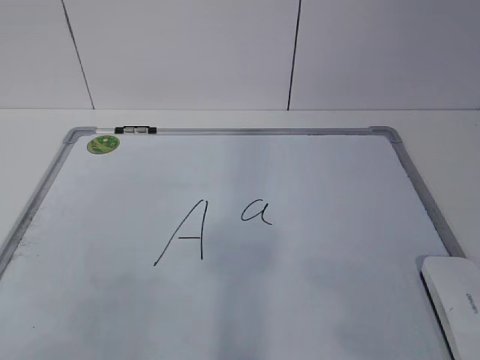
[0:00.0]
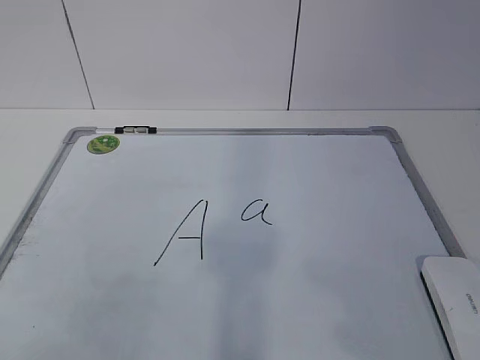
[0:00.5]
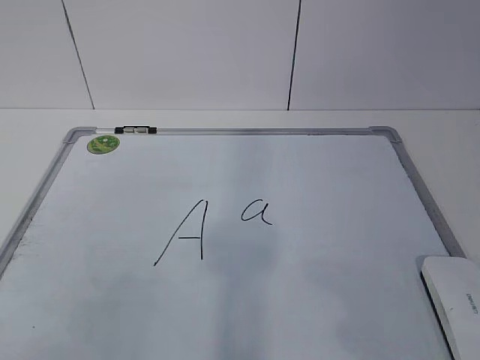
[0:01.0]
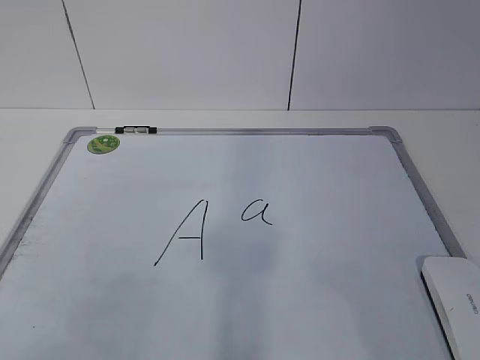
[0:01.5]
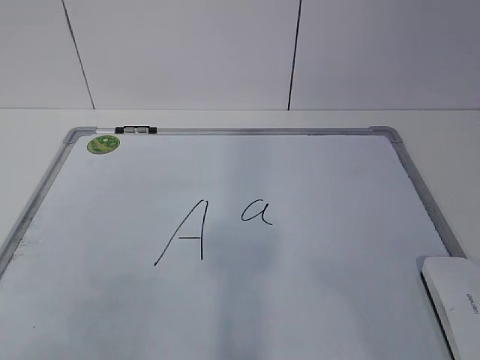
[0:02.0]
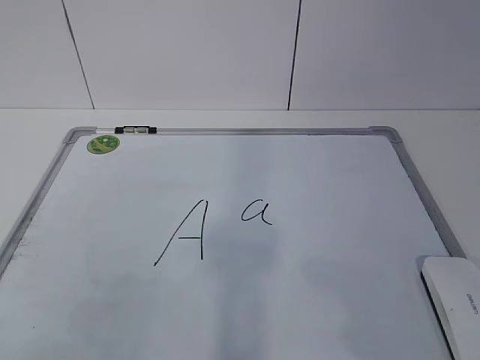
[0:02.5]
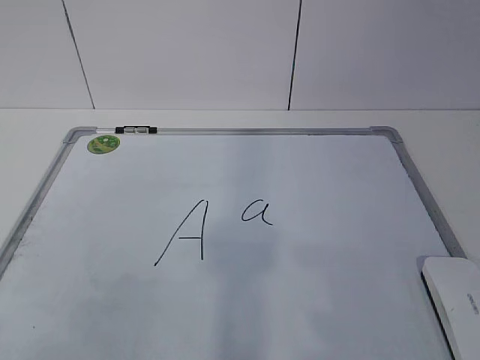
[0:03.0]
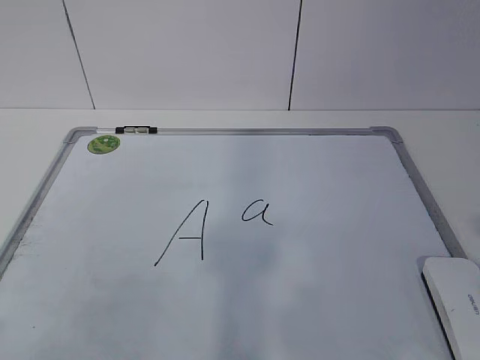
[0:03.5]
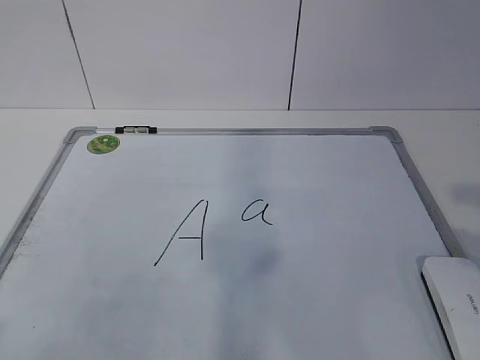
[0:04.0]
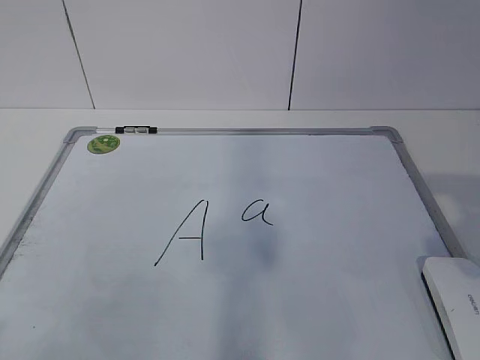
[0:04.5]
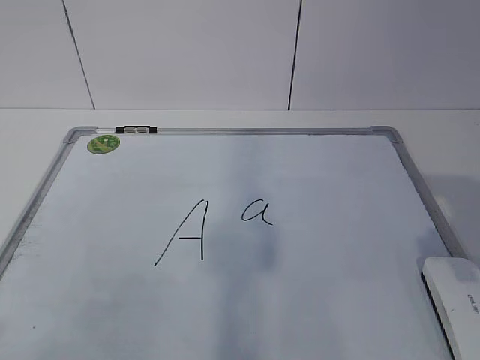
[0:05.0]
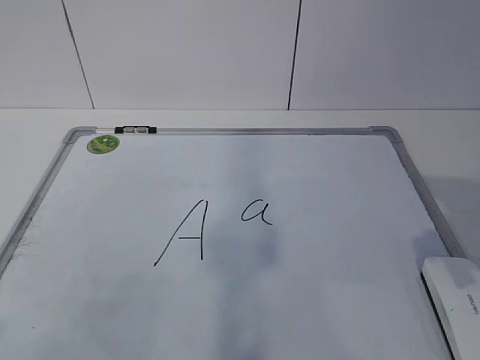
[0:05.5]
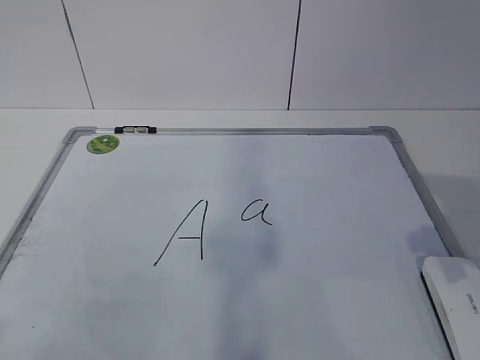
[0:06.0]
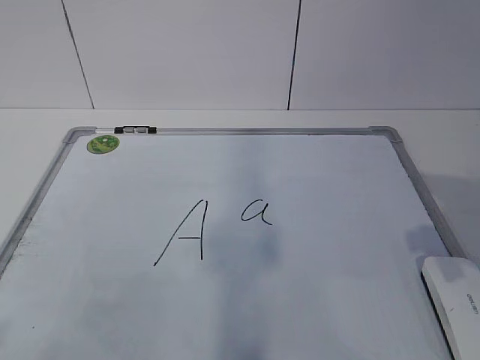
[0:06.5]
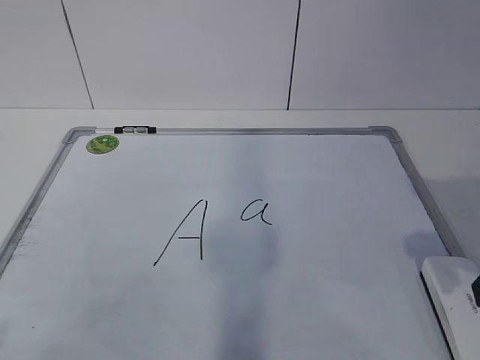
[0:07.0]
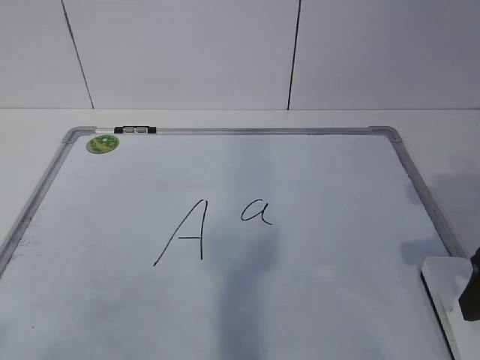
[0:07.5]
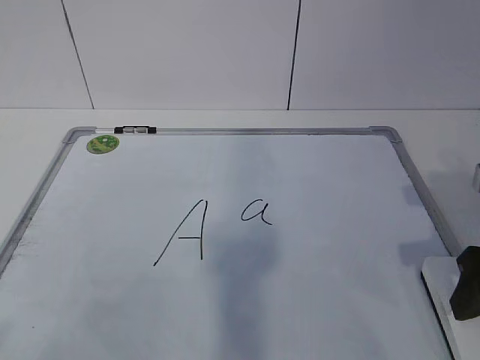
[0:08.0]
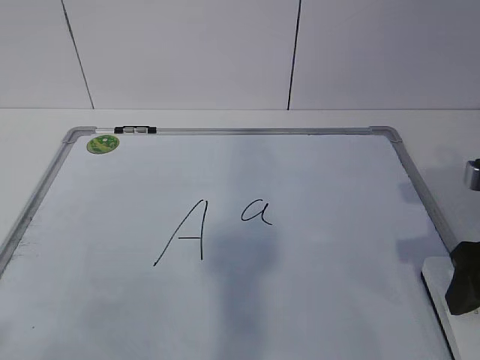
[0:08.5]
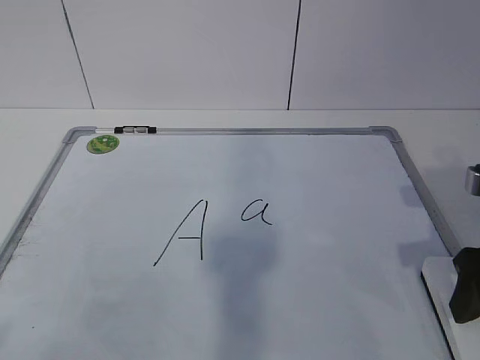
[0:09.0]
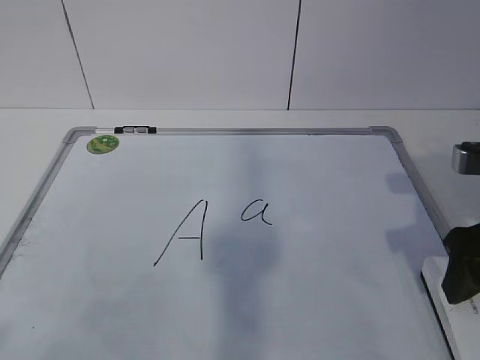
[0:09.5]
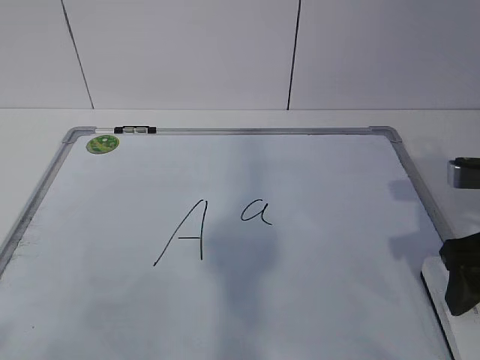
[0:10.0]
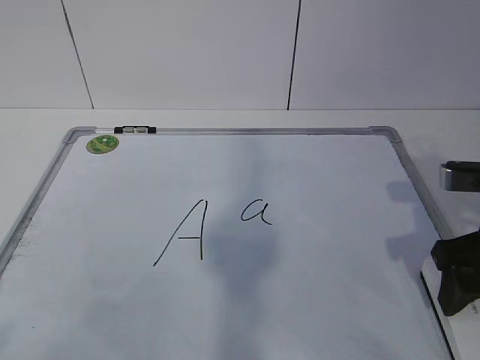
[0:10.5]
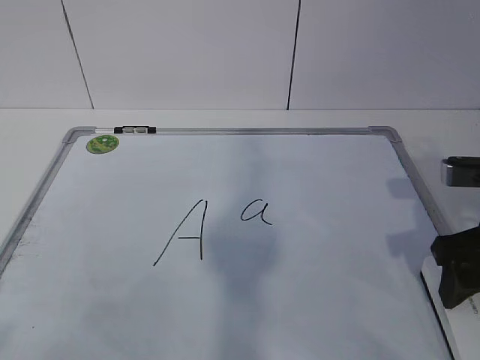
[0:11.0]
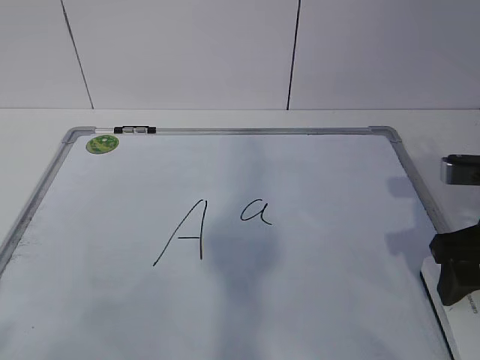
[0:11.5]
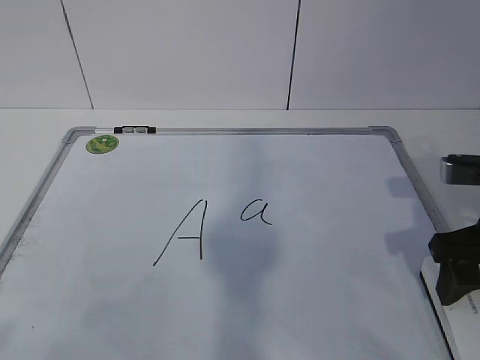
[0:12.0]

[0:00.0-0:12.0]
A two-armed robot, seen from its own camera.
Task of the whole recording: pick up the eraser on the blackboard and erase the letter "a".
Step, 0:00.0 to 0:11.0: Grab the eraser with your right hand.
0:06.0 to 0:08.0: The right gripper goes roughly 5 cm downward.
0:08.0 to 0:10.0: The grippers stay close to where they were, moving slightly.
0:10.0 to 0:12.0: The two grippers keep their place.

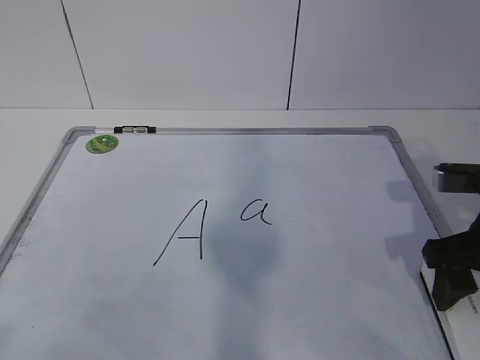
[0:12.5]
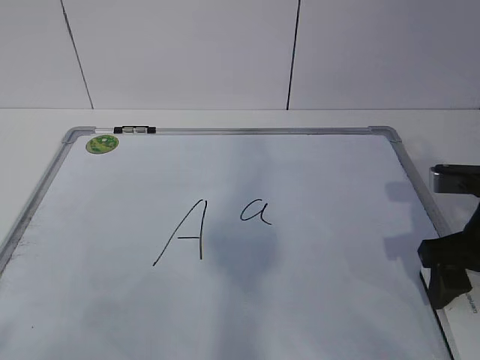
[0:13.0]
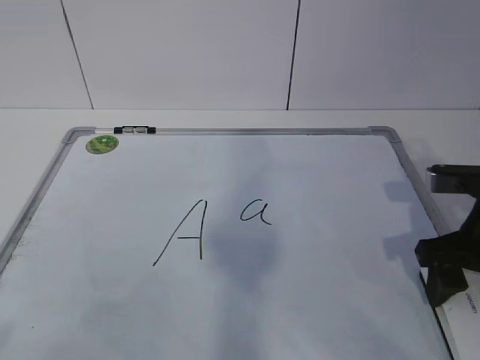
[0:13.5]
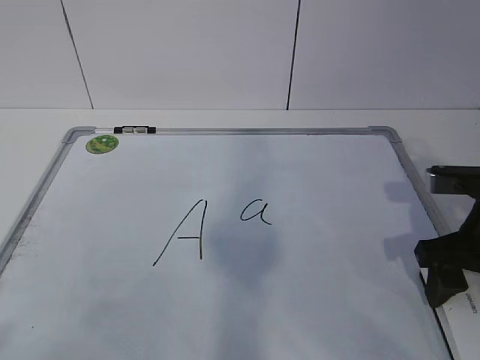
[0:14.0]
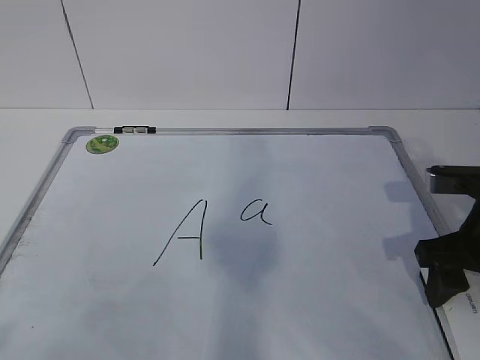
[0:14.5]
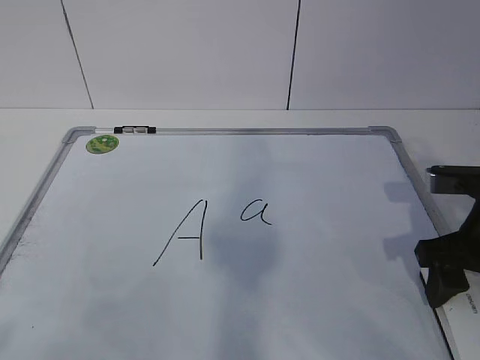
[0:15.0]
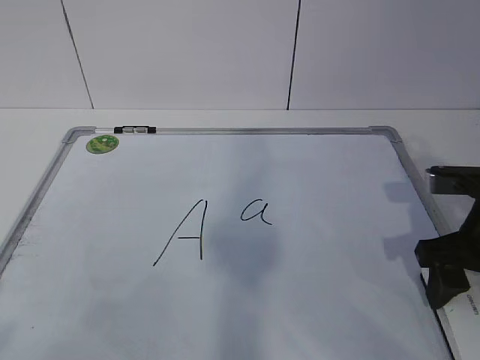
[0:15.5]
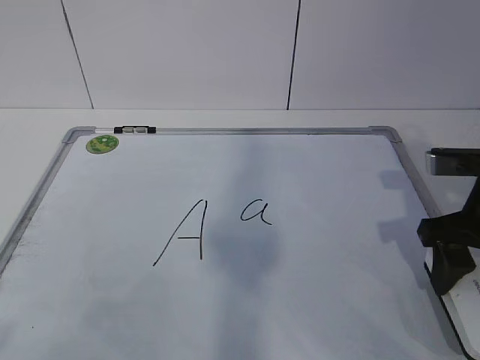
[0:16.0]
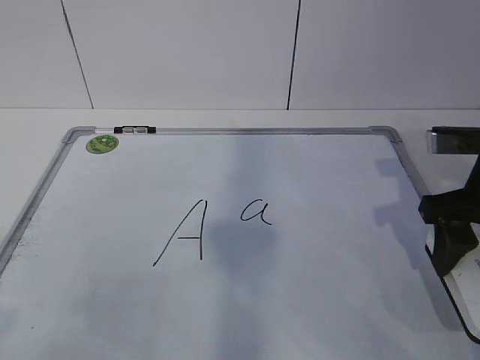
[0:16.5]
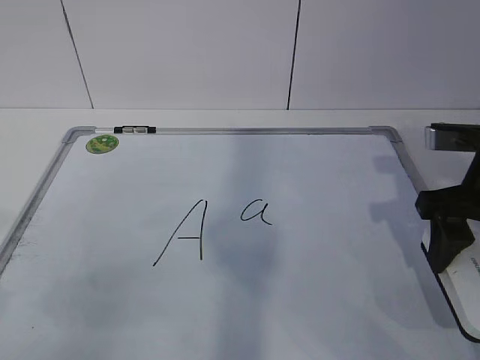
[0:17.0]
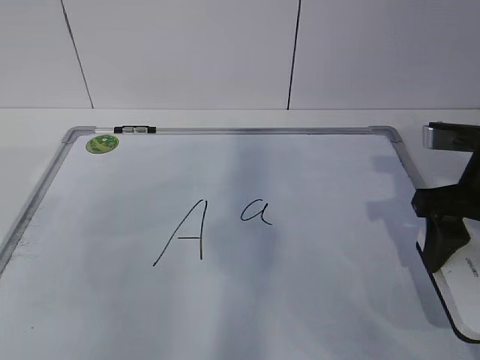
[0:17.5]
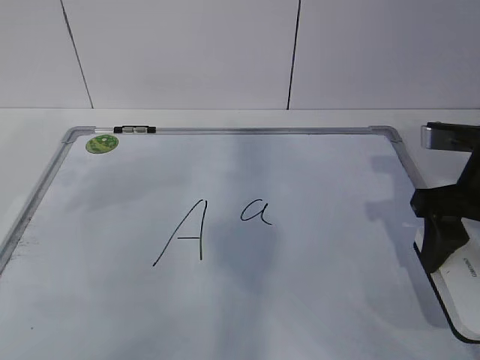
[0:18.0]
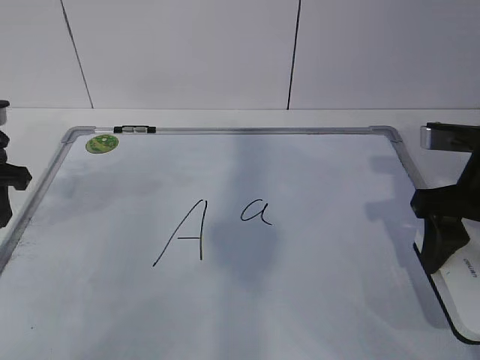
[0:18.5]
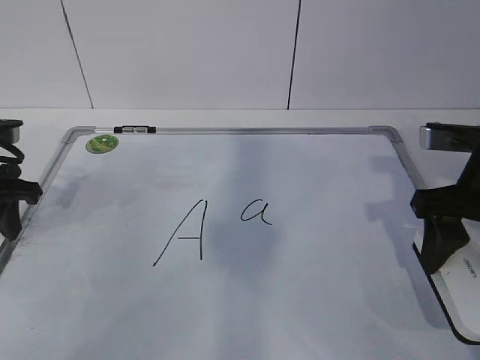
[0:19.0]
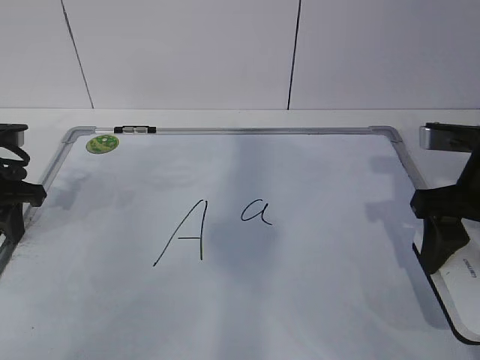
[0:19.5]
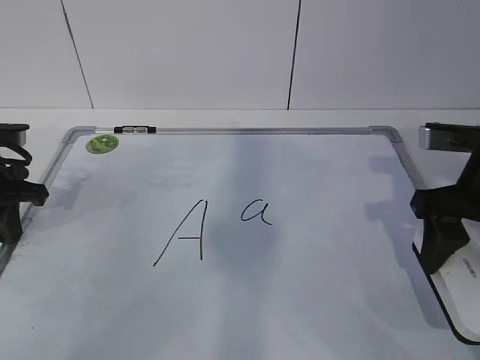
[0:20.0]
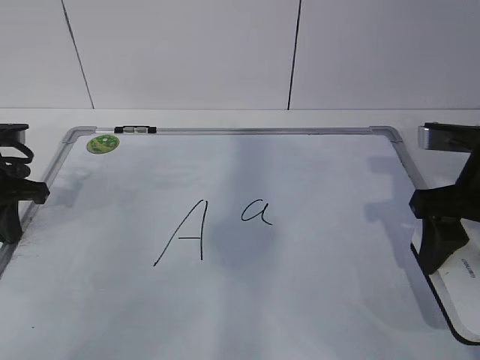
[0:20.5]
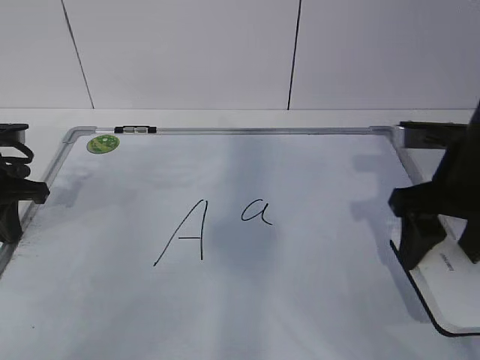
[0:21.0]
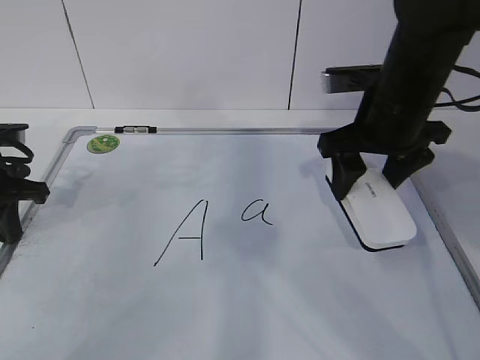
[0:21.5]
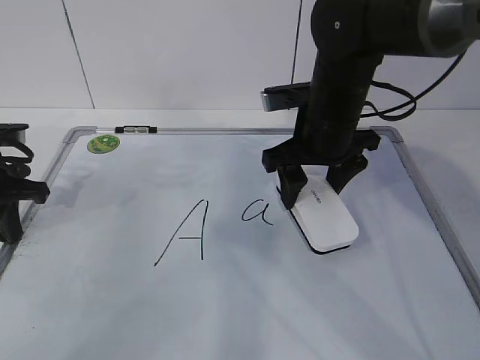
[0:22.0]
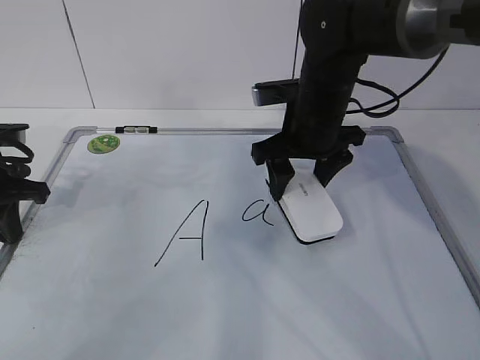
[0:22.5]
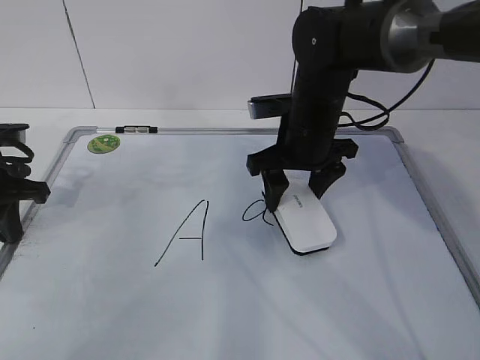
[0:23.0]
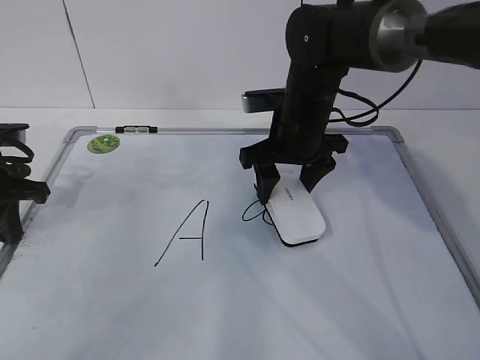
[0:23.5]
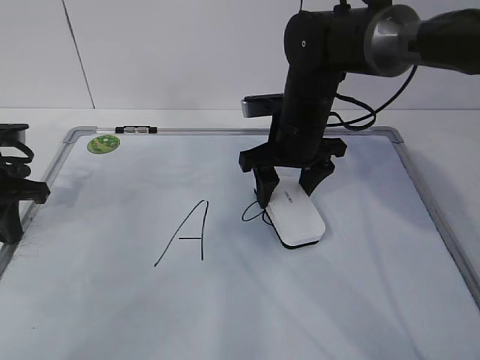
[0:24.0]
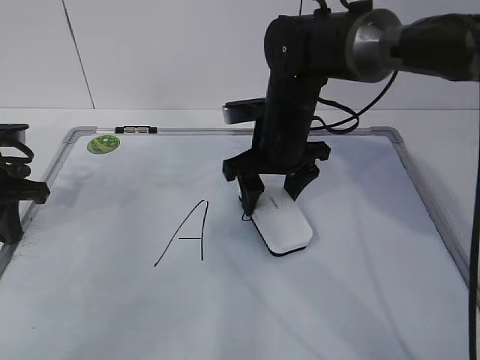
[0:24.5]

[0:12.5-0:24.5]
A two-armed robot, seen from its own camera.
Task of the whole recording: pick up the eraser on the blackboard and erase the letter "a".
Step, 0:12.5 to 0:16.5: Hold the drawing board steady with your left hand.
Step, 0:17.0 to 0:24.0: Erase the letter a with your right hand.
0:12.5 to 0:16.5: The grippers stay close to where they were, moving slightly.
0:16.5 to 0:18.5: The left gripper heads forward, covering some 30 cm.
0:18.5 to 0:20.5: The left gripper closes.
0:20.5 to 0:22.5: The right gripper heads to the left and forward, covering roughly 20 cm.
0:22.5 to 0:24.5: The grippers move only a little.

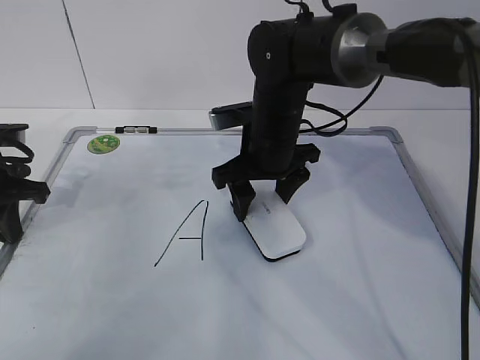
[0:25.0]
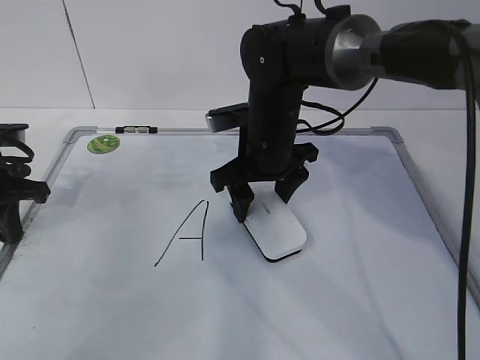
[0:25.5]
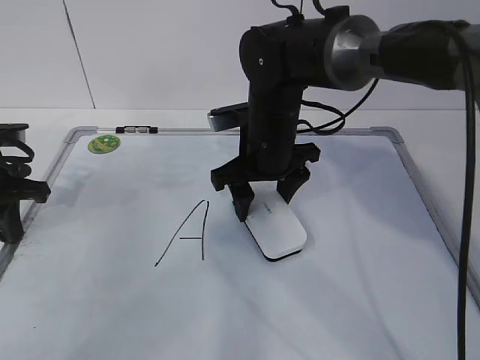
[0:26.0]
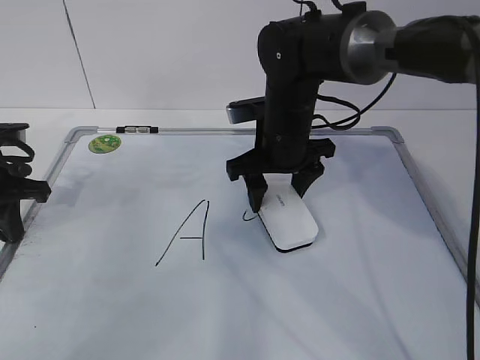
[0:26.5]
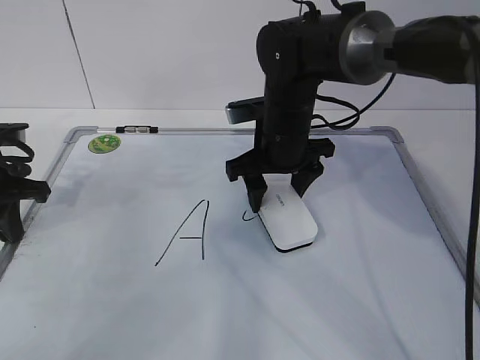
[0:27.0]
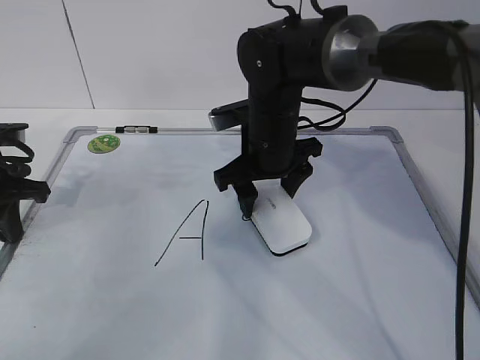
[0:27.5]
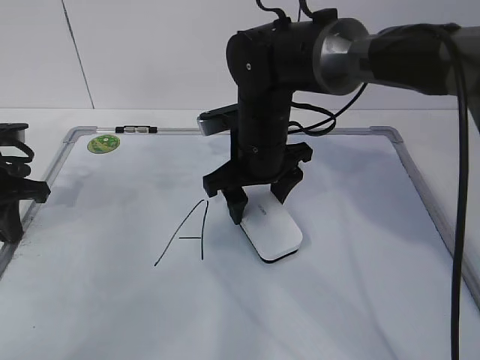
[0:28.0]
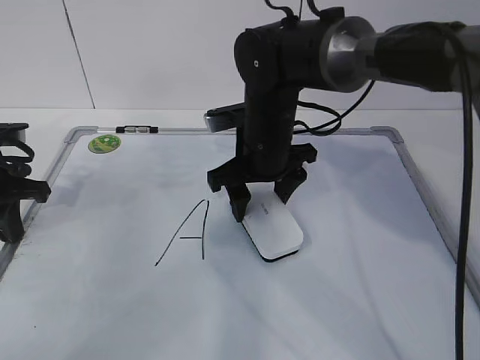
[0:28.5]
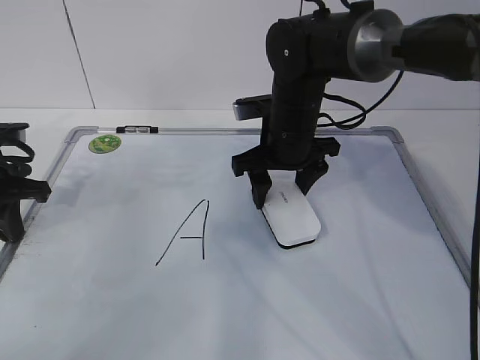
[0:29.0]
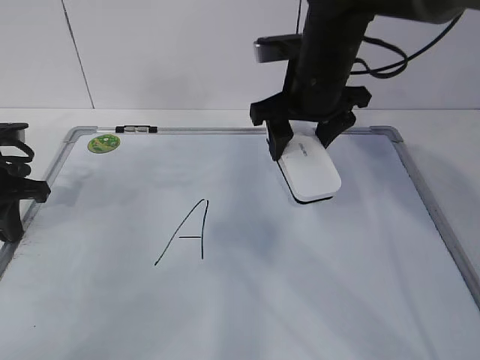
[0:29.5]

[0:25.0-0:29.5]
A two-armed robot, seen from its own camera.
Task of the whole recording: pick up the eraser on the blackboard and erase the letter "a".
0:25.0 to 0:27.0: The grippers make only small movements.
0:27.0 to 0:29.5: The right gripper shifts roughly 5 cm upward.
